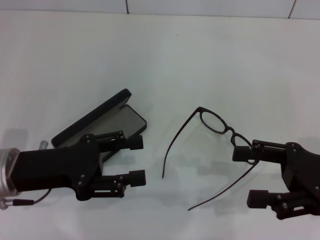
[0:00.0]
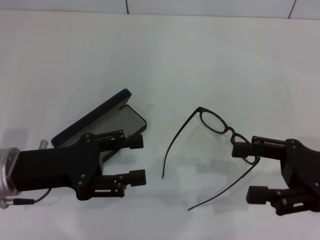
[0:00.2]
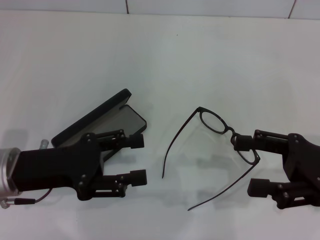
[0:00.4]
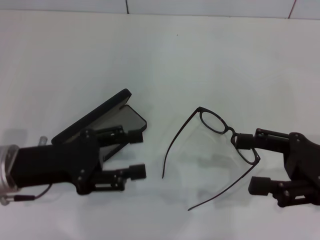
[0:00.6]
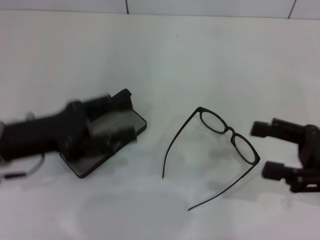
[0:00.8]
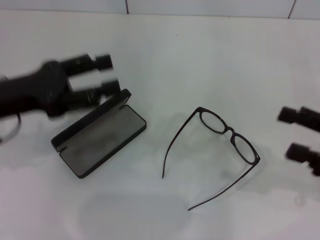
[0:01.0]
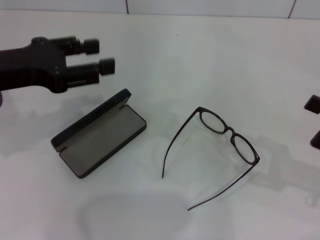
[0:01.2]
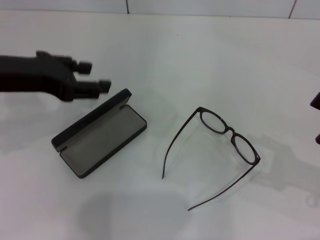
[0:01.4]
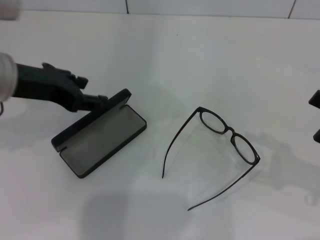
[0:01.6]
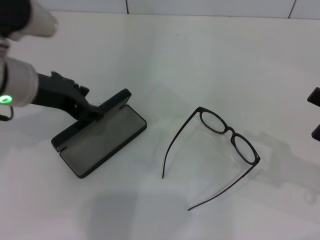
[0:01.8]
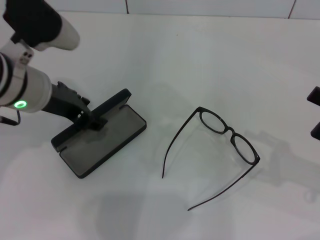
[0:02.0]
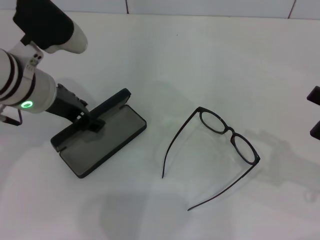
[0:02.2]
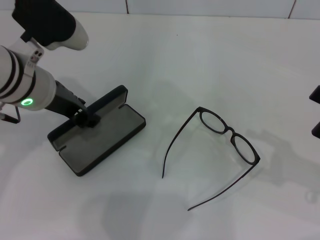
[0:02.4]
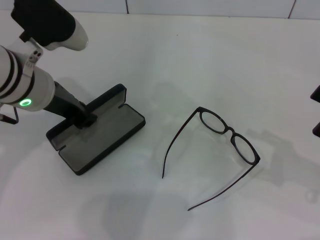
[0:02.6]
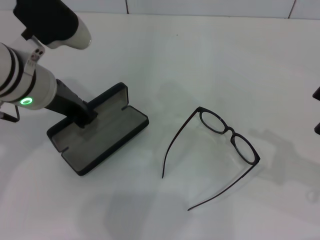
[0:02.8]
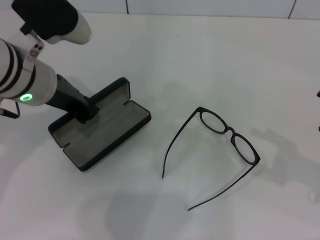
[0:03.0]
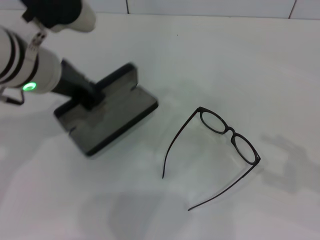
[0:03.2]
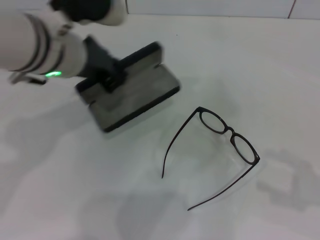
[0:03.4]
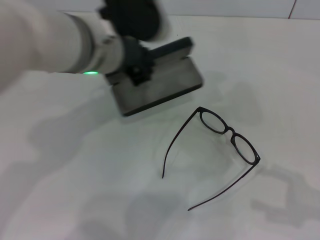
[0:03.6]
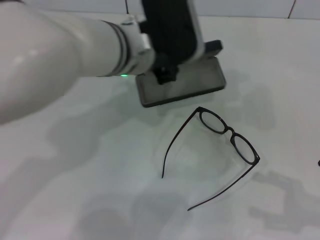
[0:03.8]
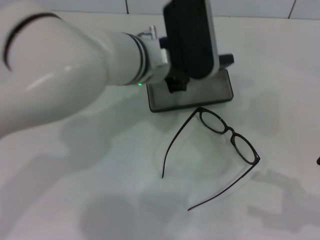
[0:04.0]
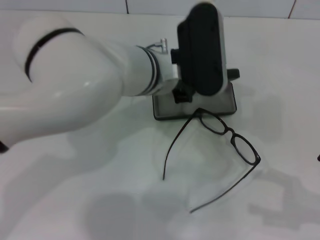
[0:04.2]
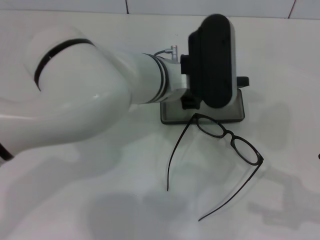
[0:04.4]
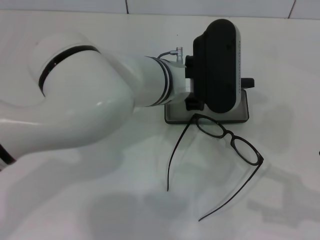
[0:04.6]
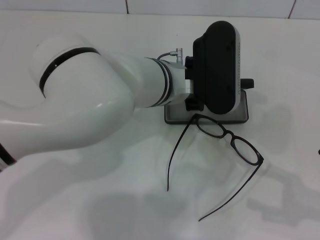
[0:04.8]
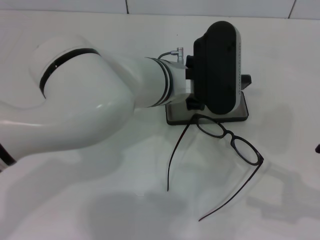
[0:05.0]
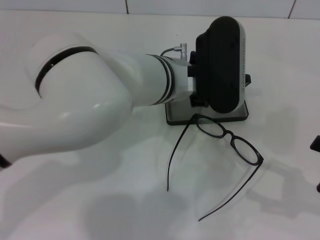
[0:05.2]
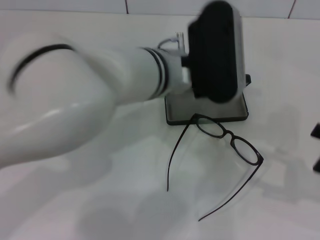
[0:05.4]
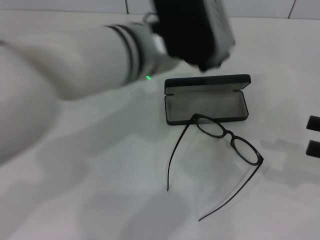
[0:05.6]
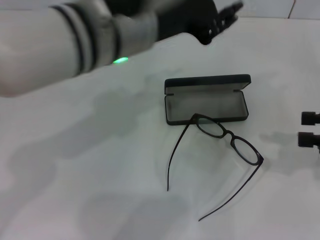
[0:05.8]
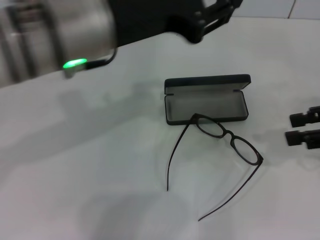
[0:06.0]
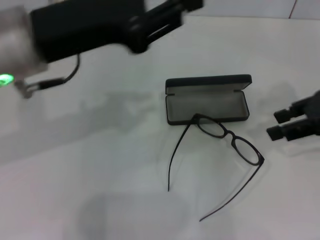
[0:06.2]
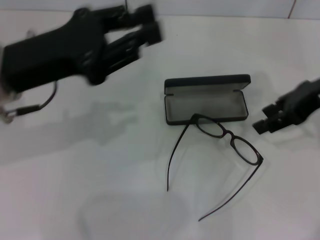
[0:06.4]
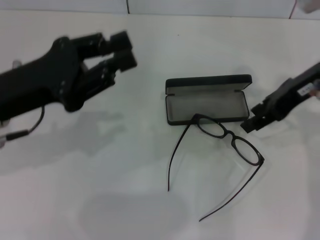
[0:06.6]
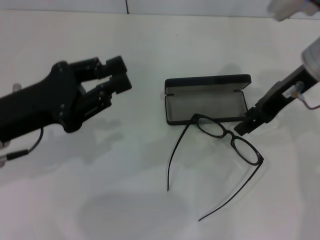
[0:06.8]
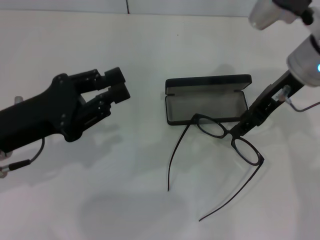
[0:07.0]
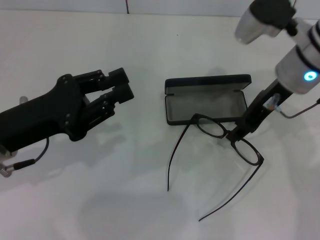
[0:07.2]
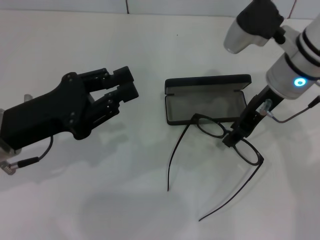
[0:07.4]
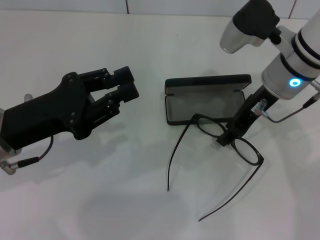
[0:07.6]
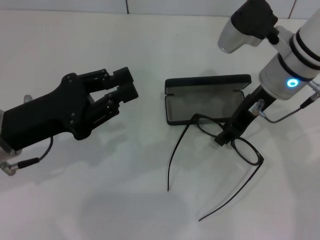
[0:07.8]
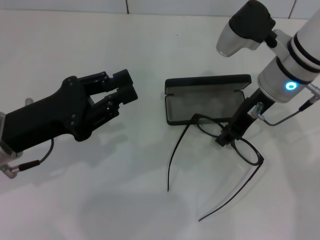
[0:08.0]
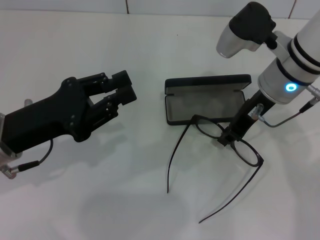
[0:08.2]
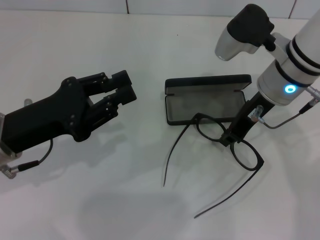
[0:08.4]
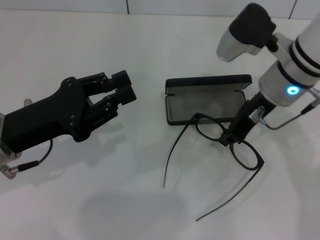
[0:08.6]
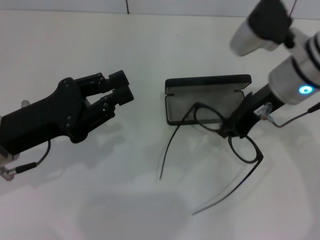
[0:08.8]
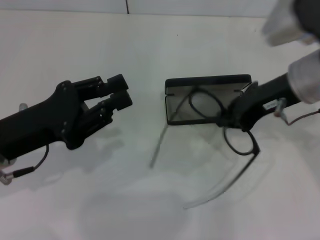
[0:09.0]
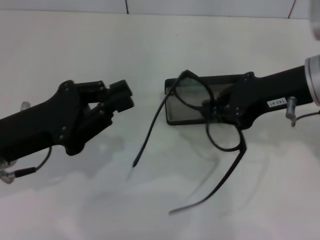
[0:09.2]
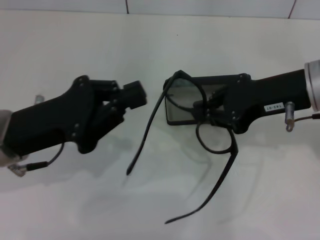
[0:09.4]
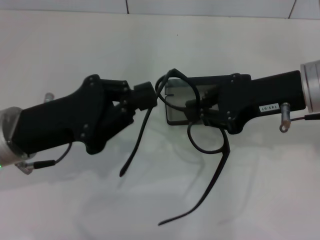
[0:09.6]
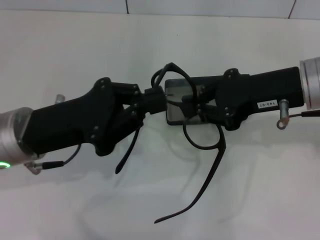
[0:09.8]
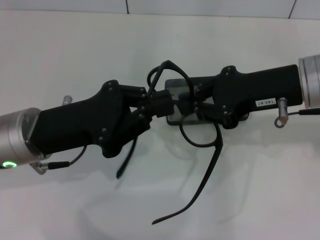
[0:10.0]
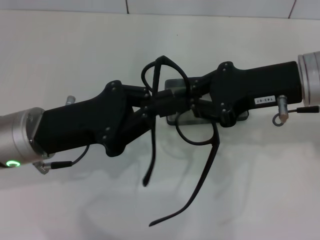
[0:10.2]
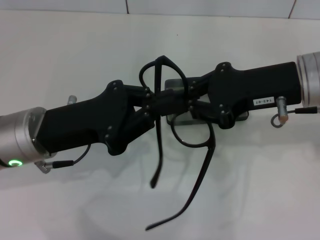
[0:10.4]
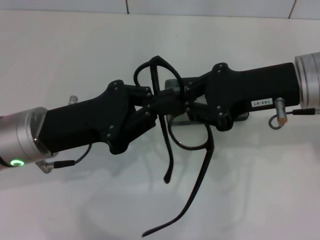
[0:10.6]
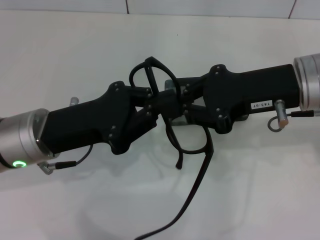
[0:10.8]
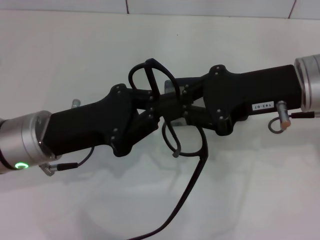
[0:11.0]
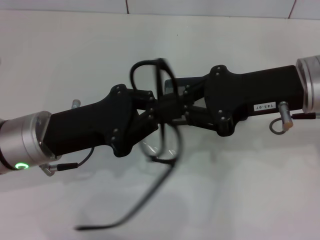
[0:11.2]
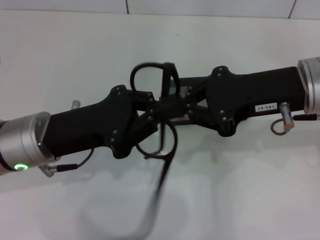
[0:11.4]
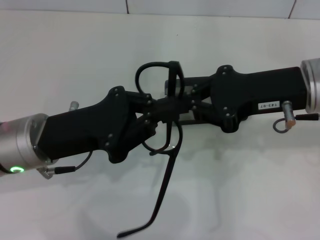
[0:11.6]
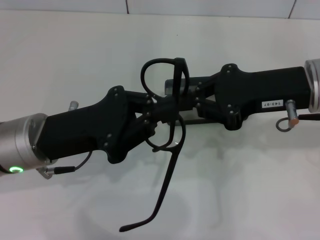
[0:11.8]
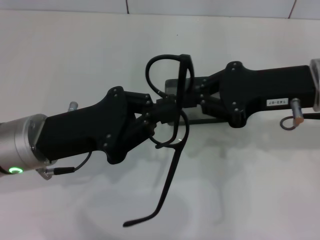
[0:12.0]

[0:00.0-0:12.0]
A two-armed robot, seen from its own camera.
Step, 0.0 to 2.8 s: Grab the glasses case with your left hand.
Step, 3.0 to 5.0 s: Place the glasses case in the center of the table with your left hand.
Step, 5.2 to 8.4 s: Grab the eyeglass frame with your right hand.
0.0 to 1.6 s: The right gripper is displaced to the right by some 5 cm; the left gripper heads upward and forward, covering approximately 15 cm.
1.6 to 3.0 s: The left gripper shifts by approximately 5 cm, and closes.
3.0 to 4.4 s: The left gripper shifts some 15 cm to the right.
4.4 to 6.0 s: The right gripper shifts approximately 15 cm forward and upward. The left gripper shifts about 15 cm upward, to the left and backward.
6.0 to 7.6 s: The left gripper shifts about 20 cm downward and to the left, while the right gripper goes some 20 cm to the left and forward.
7.6 to 9.0 s: The right gripper changes place by about 5 cm, and closes its fingers.
9.0 to 10.4 s: The left gripper ends up approximately 5 cm from where it was, and closes its fingers.
10.4 to 12.0 s: There are only small adjustments of the grippers.

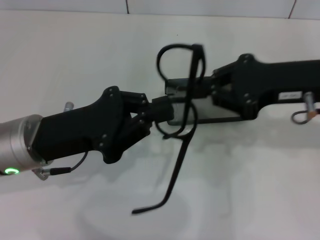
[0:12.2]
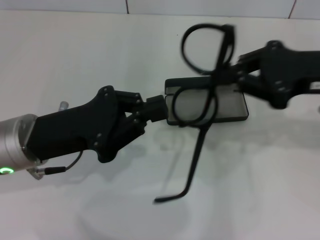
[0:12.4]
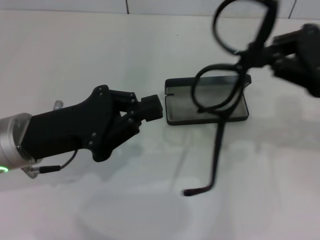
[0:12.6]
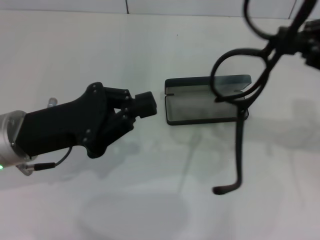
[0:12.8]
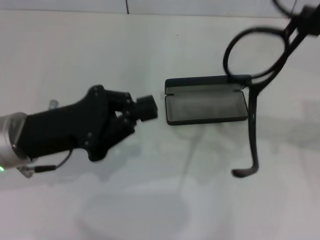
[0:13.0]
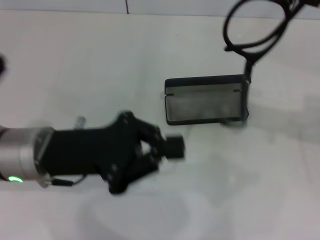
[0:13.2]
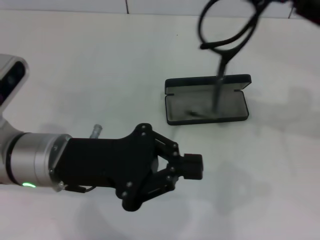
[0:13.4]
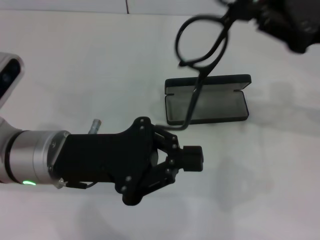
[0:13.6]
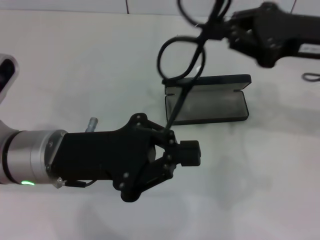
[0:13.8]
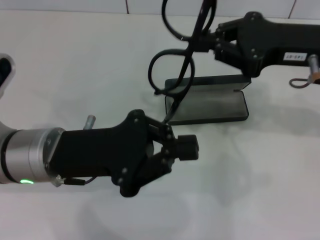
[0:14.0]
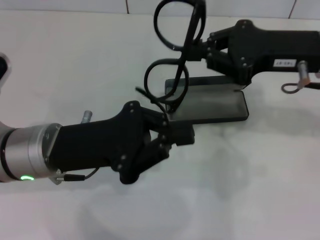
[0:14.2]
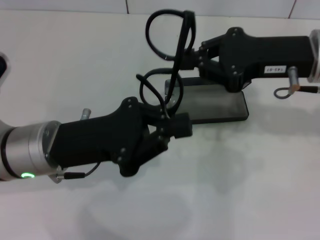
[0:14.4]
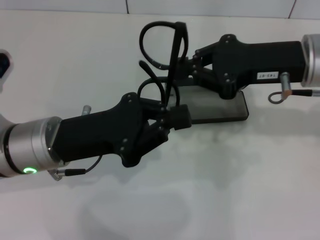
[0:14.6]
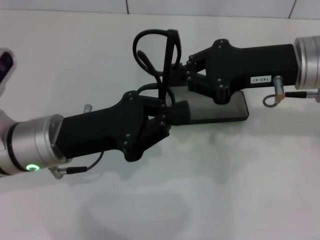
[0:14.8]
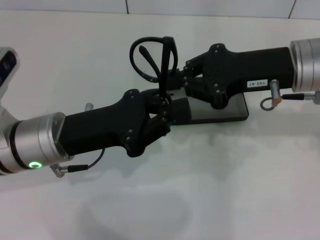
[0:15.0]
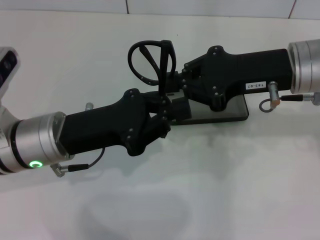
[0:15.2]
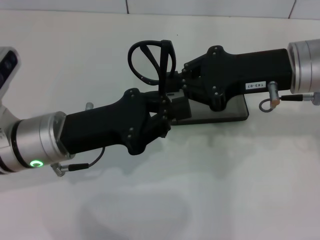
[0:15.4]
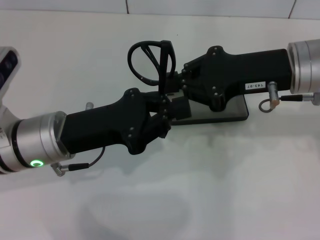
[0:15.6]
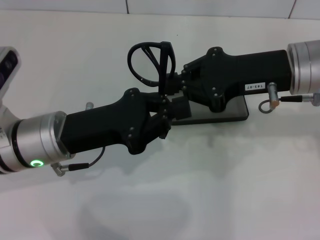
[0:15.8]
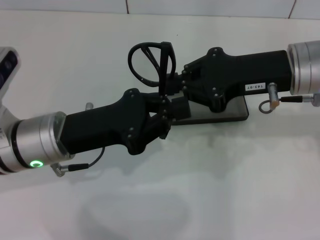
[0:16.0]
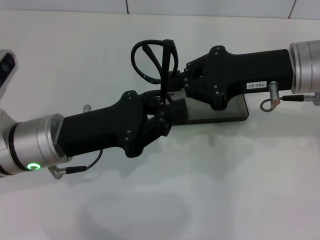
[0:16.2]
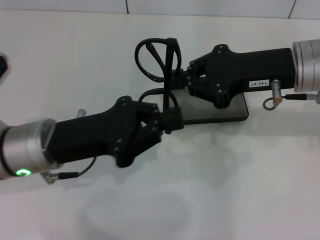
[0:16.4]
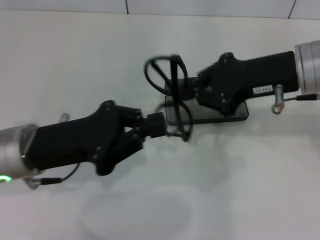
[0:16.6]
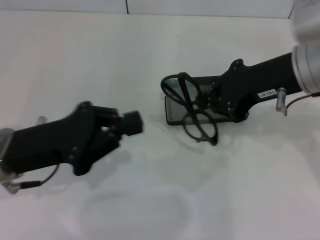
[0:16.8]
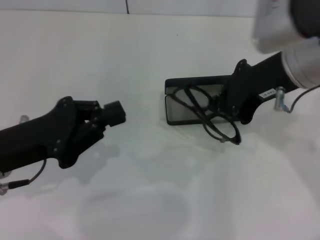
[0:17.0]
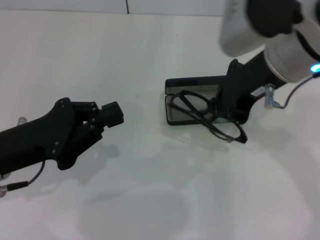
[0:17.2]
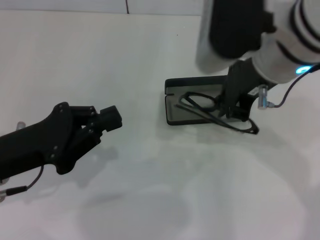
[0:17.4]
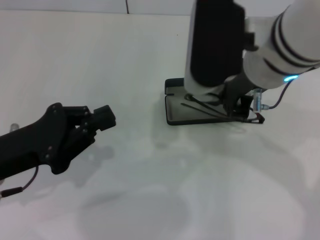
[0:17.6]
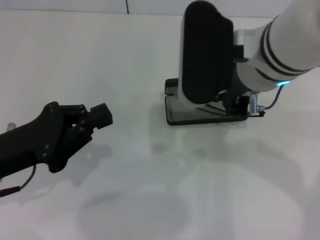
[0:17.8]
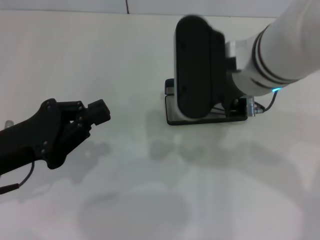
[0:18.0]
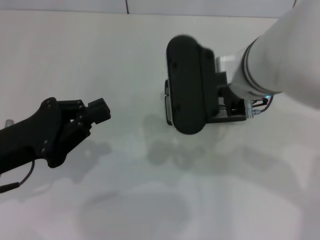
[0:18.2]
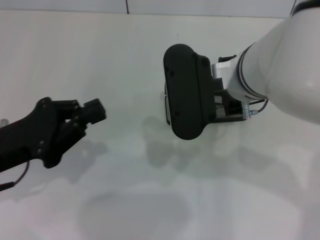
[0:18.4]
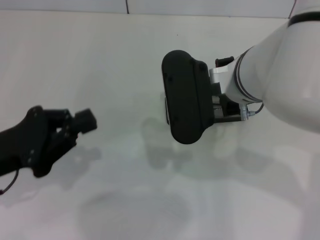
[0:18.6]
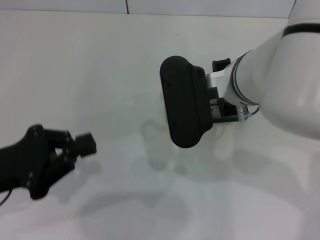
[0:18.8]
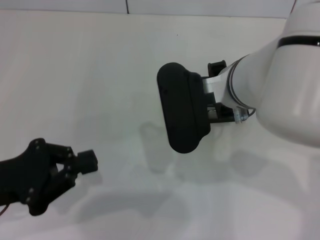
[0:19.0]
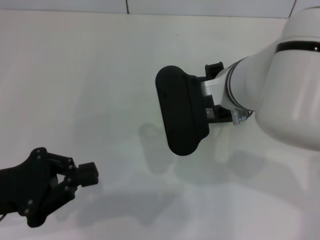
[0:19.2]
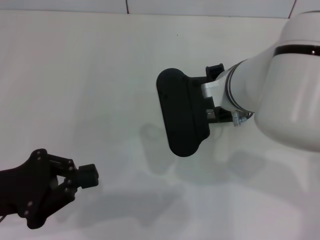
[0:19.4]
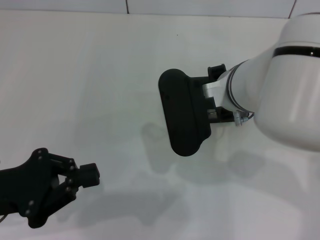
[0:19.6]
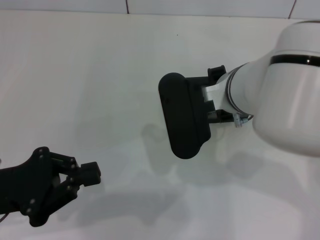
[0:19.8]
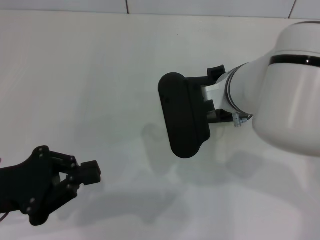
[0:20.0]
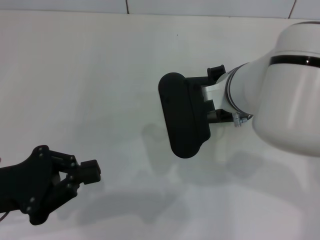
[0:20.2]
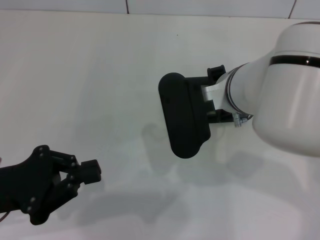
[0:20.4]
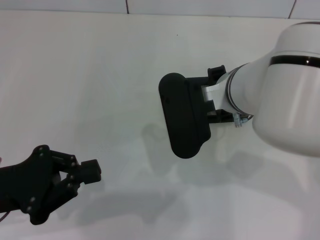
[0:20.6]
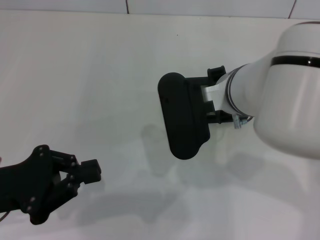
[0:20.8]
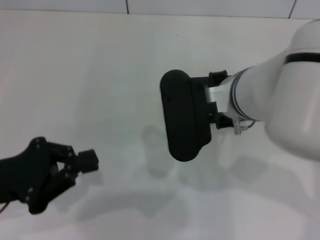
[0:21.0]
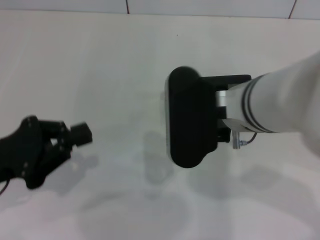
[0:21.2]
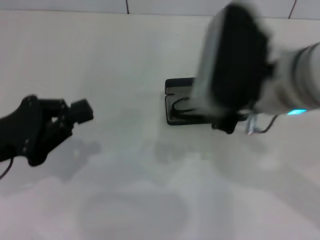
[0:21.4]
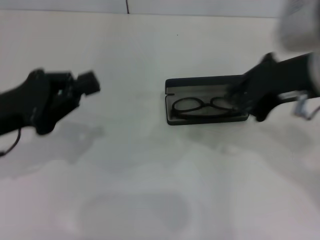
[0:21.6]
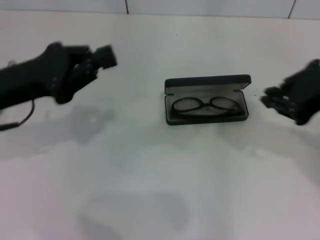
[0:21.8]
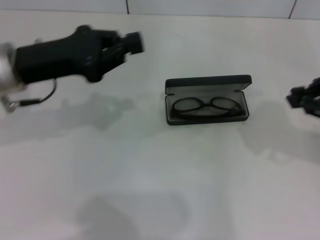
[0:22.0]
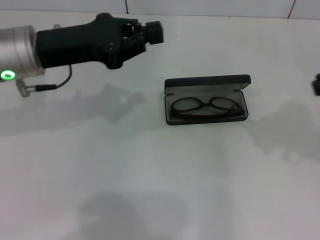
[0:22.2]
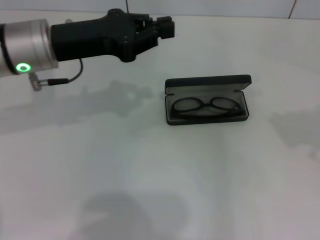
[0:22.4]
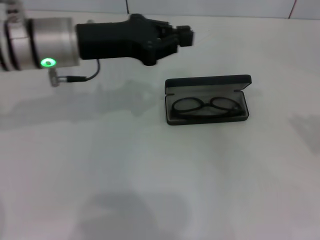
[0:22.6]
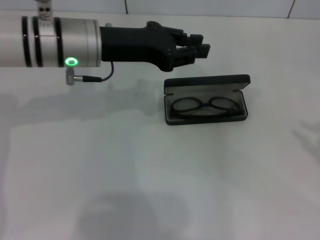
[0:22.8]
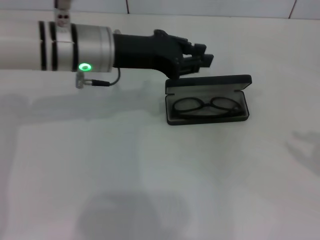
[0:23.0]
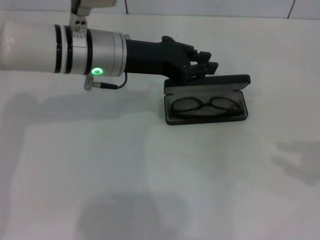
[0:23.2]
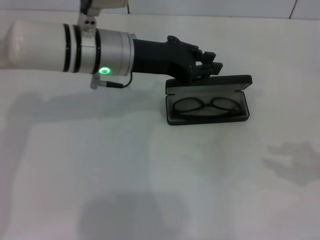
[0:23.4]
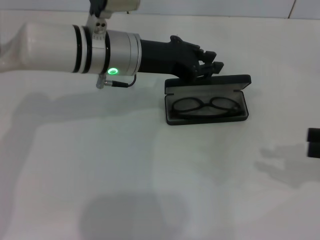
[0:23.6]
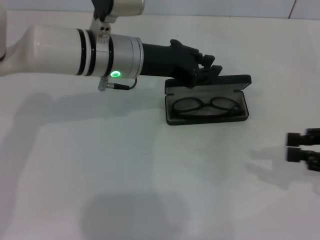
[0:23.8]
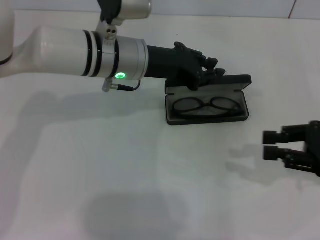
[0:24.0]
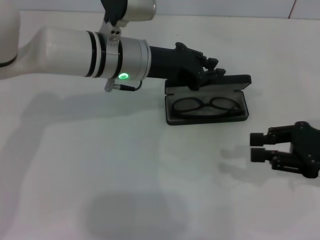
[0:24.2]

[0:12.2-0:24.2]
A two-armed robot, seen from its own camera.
Step, 12.2 to 16.0 s: Lift the glasses with your right hand.
Step, 16.2 to 20.6 s: Put the glasses into the case with your right hand.
12.2 to 13.8 s: The right gripper reaches some 10 cm to the right, then returns.
13.8 to 15.2 s: The right gripper is displaced to the left by about 5 cm.
15.2 to 16.6 s: There are only small adjustments of the grippers.
16.6 to 18.2 s: The left gripper moves to the left, about 5 cm. The right gripper goes roughly 10 cm to the left.
21.2 to 22.6 s: The left gripper moves forward, to the right and upward, some 20 cm; the right gripper goes roughly 30 cm to the right.
22.6 to 24.2 s: The right gripper goes approximately 20 cm downward, to the left and forward; the left gripper heads to the right, covering roughly 10 cm.
